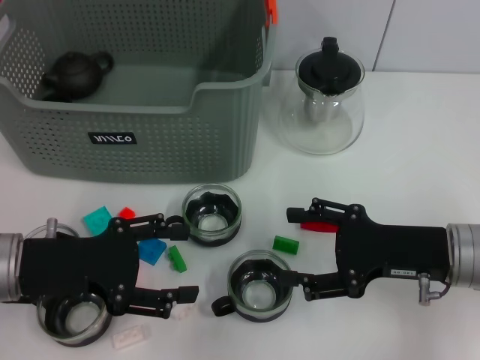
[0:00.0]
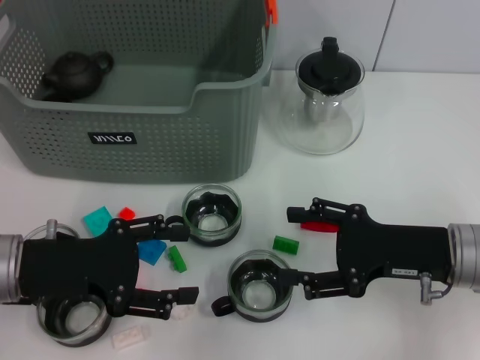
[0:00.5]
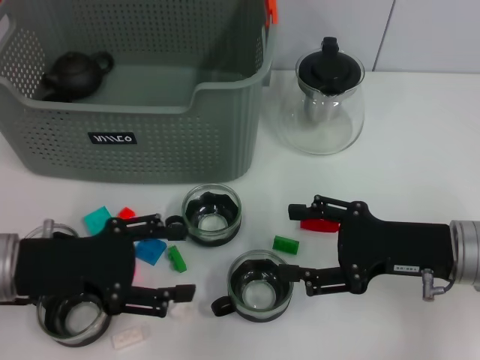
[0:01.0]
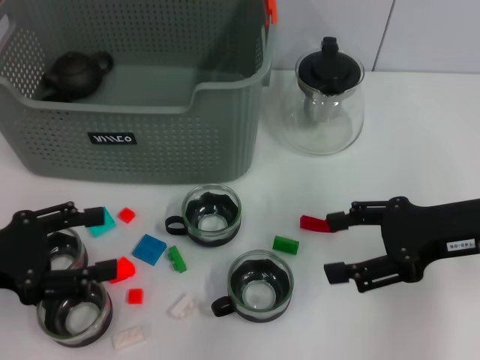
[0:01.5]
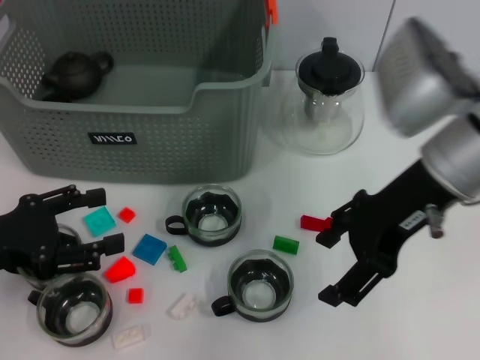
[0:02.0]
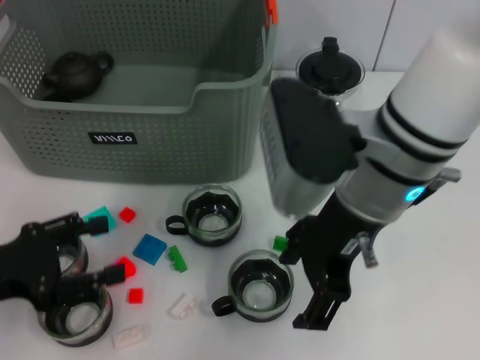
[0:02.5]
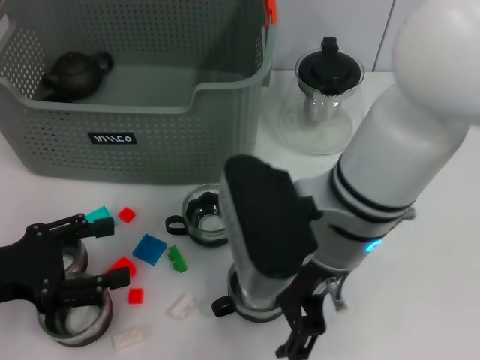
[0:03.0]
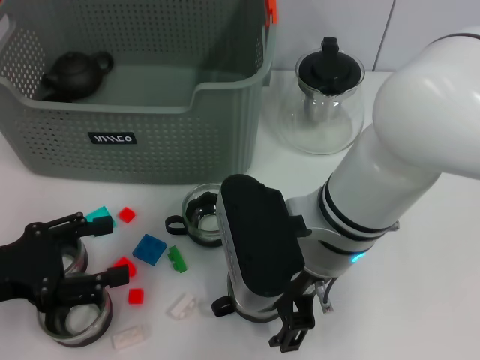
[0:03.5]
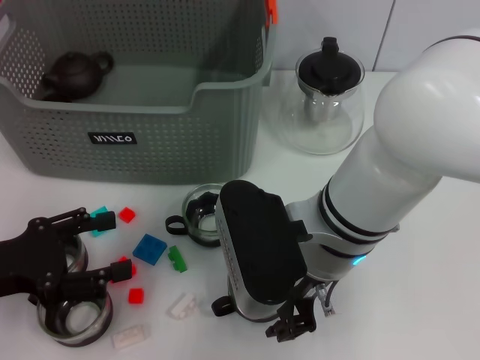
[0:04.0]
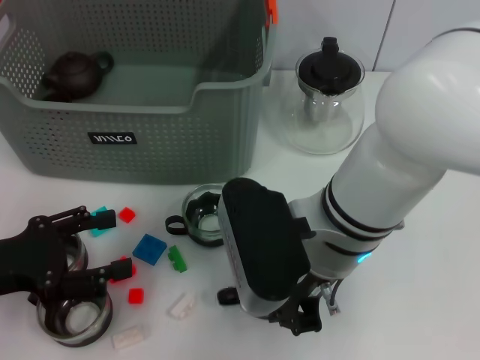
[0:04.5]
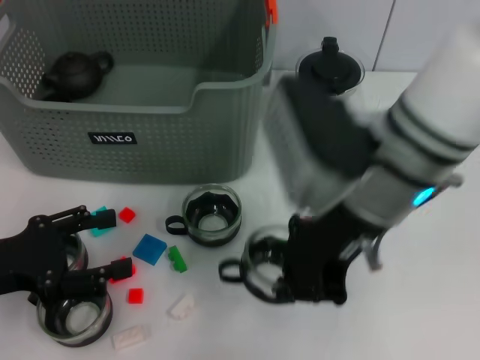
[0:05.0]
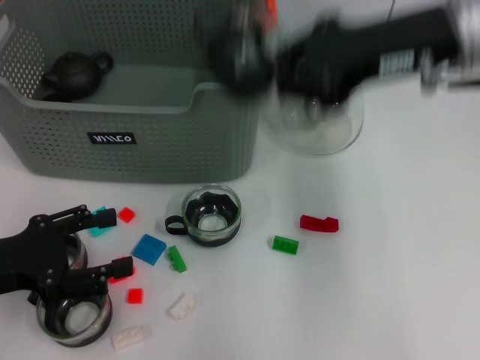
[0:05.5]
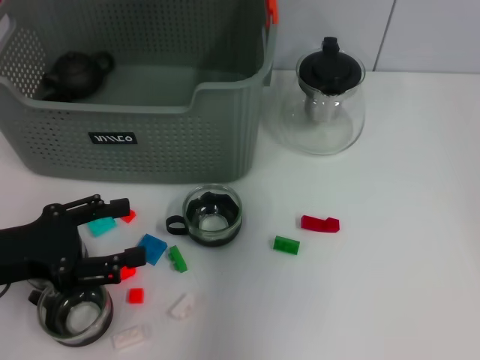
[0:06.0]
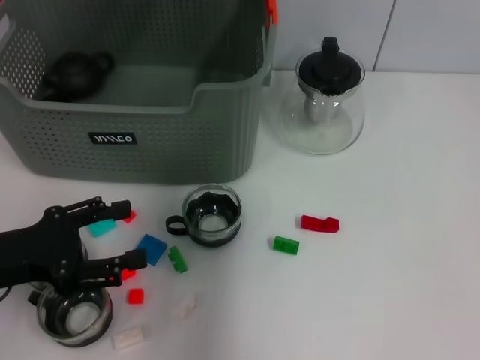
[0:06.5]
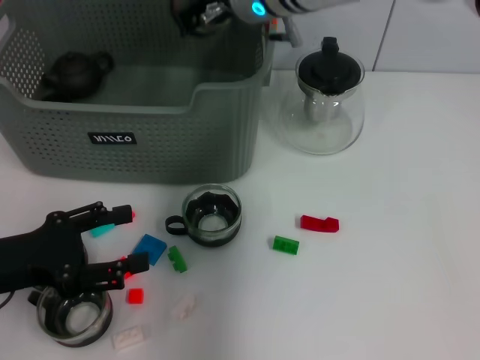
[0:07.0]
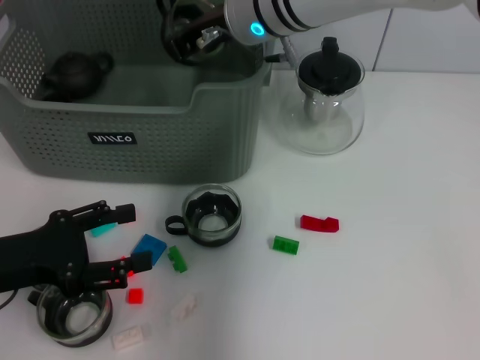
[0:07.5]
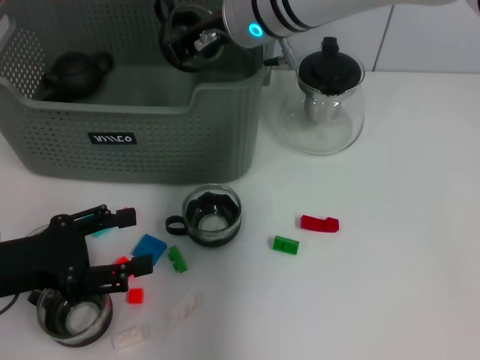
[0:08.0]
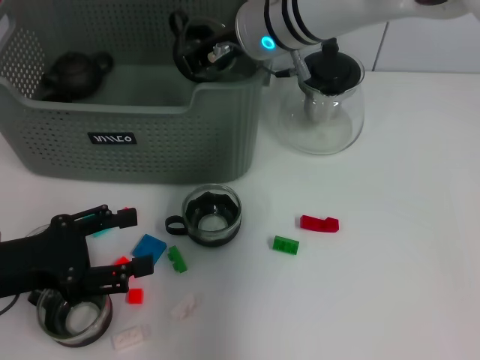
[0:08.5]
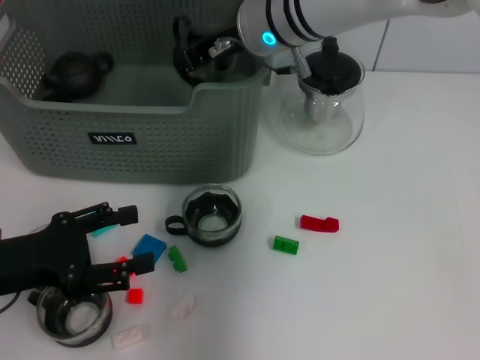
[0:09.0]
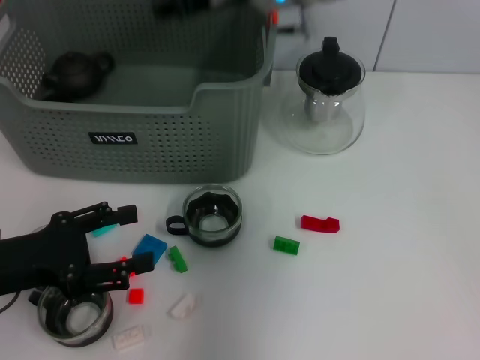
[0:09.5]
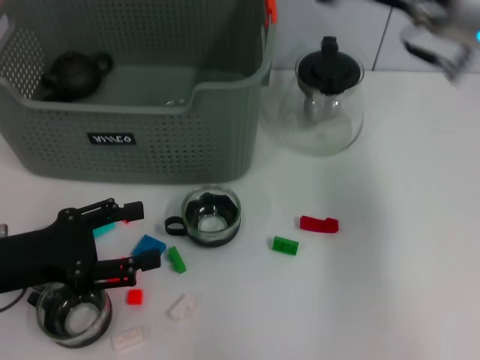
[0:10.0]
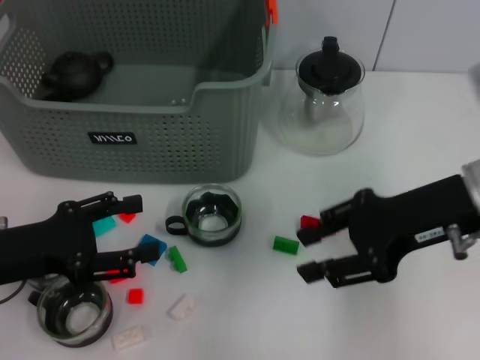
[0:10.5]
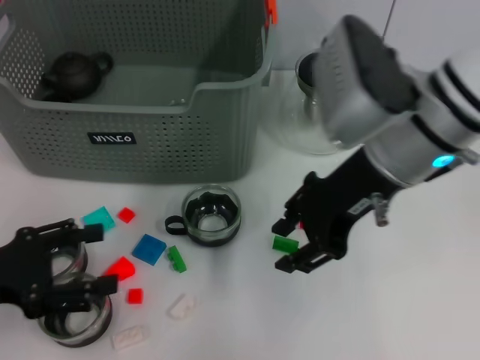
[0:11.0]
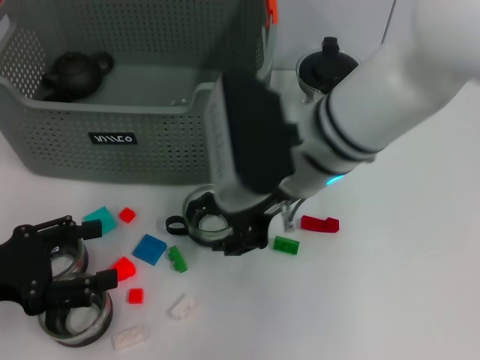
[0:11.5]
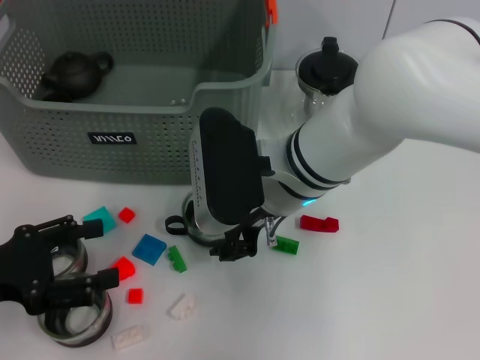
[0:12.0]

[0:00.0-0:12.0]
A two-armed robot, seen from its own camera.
Task of the whole recording: pick up the teacup on the table and place it into the storage bin, pick up the block on the table and place it into the storage bin.
Step, 0:00.0 to 0:04.5: Grasp the cup with right gripper.
Step, 0:05.0 to 0:09.5: Place the cup in the storage box with right gripper.
0:00.0 to 0:02.0: The right gripper travels upward and to the left by some 15 cm, while the left gripper moves to the left, roughly 5 cm.
0:02.0 to 0:04.0: The right gripper heads to the left and downward, covering some 15 cm.
0:04.0 to 0:06.0: The right gripper is displaced upward and forward by roughly 25 cm, and closes up.
0:06.0 to 0:08.0: The right gripper goes some 15 cm downward and to the left.
0:08.0 to 0:10.0: The right gripper is displaced to the right and backward by roughly 20 cm, and opens its fingers.
0:10.0 to 0:12.0: The right gripper moves to the left and downward, about 20 cm.

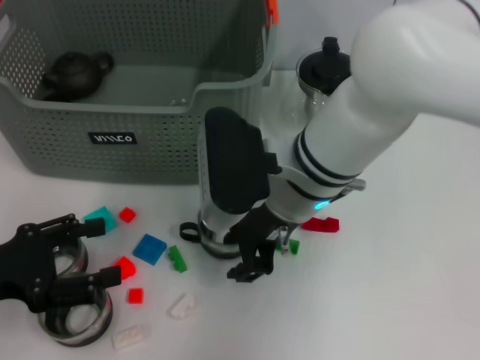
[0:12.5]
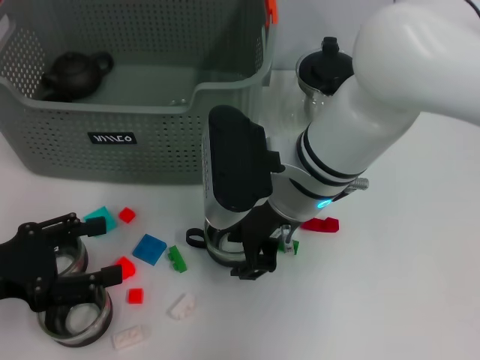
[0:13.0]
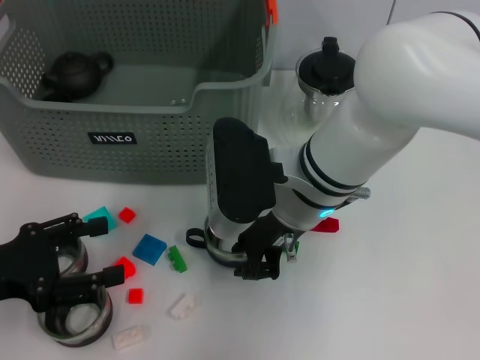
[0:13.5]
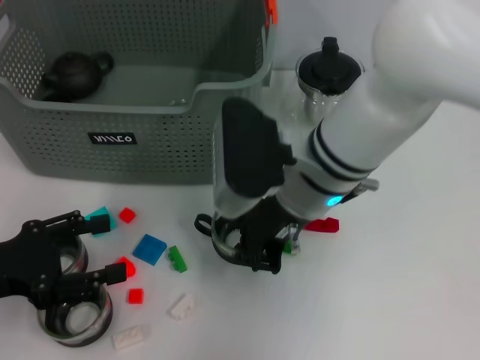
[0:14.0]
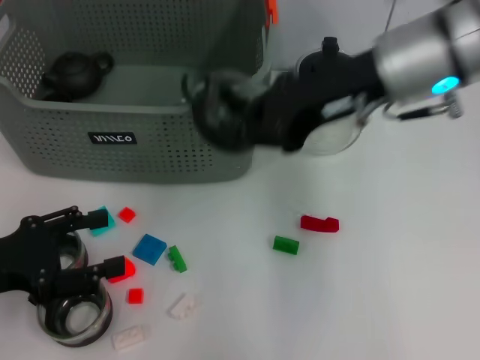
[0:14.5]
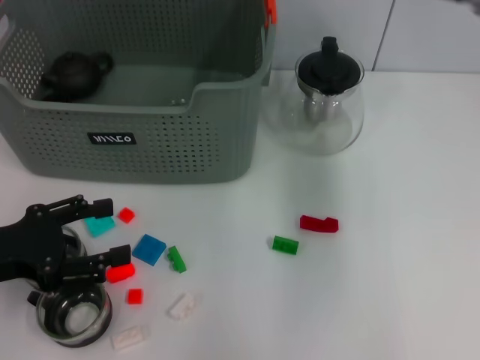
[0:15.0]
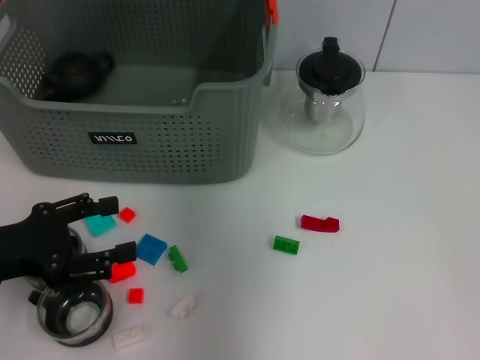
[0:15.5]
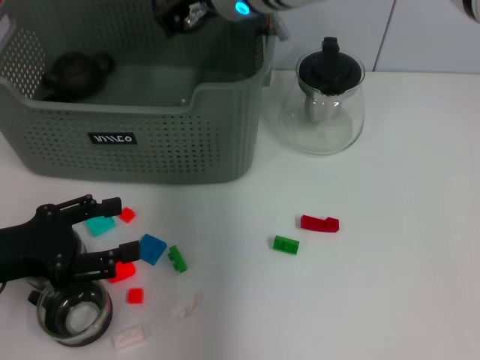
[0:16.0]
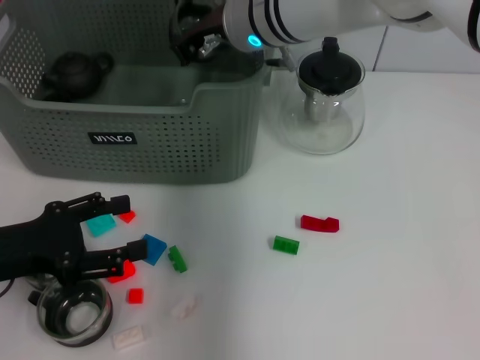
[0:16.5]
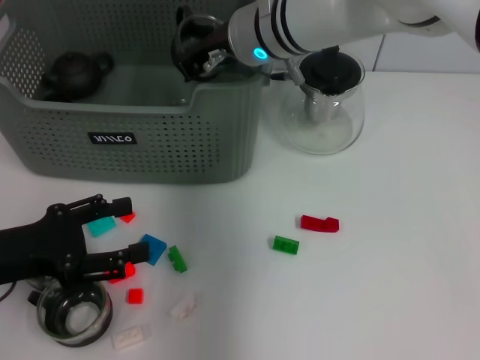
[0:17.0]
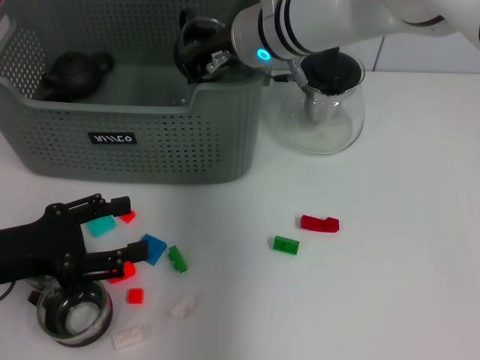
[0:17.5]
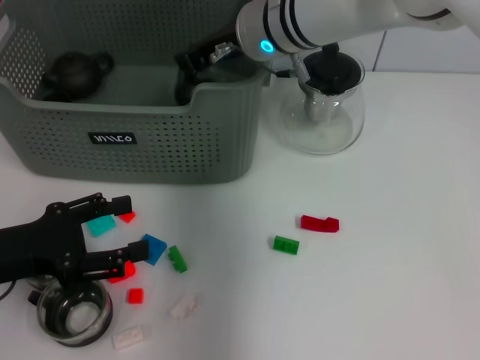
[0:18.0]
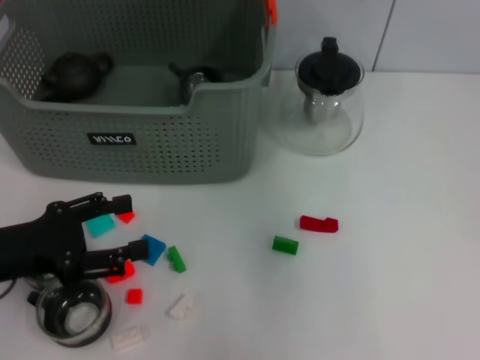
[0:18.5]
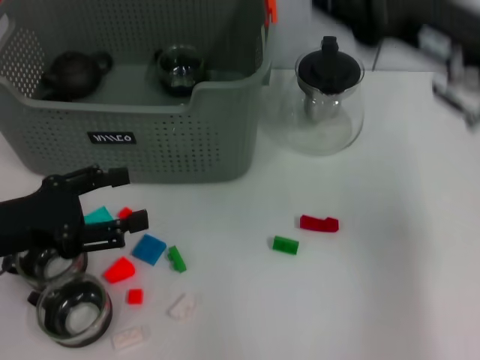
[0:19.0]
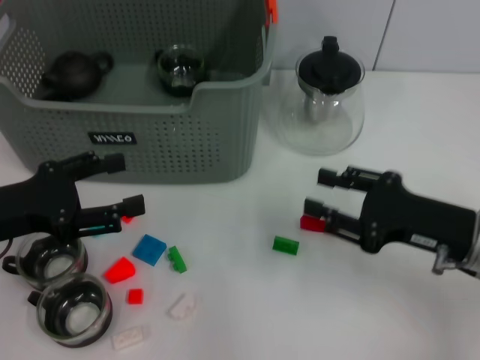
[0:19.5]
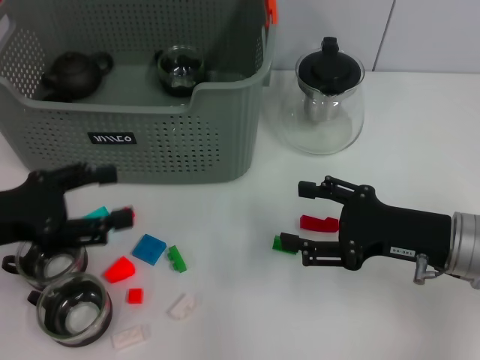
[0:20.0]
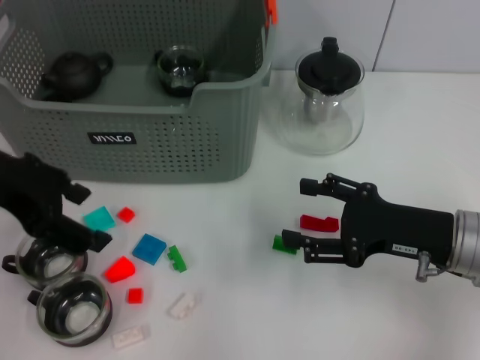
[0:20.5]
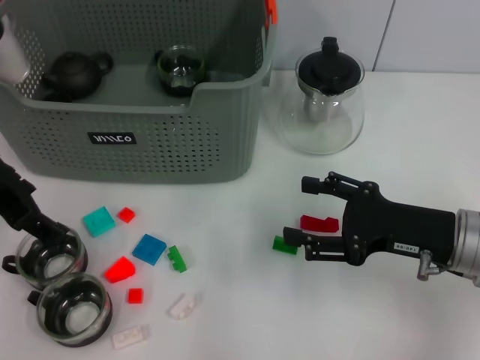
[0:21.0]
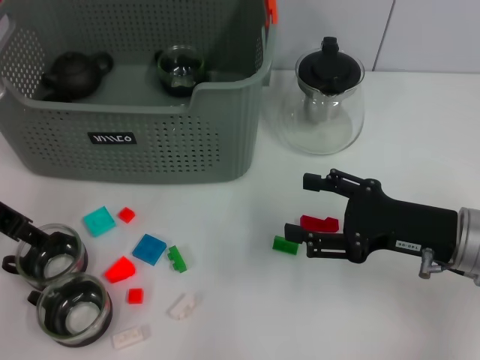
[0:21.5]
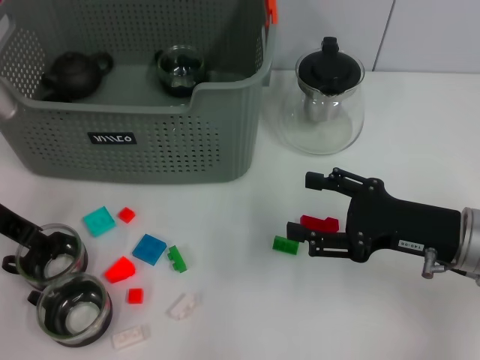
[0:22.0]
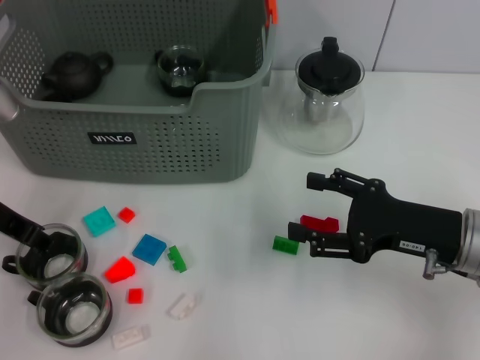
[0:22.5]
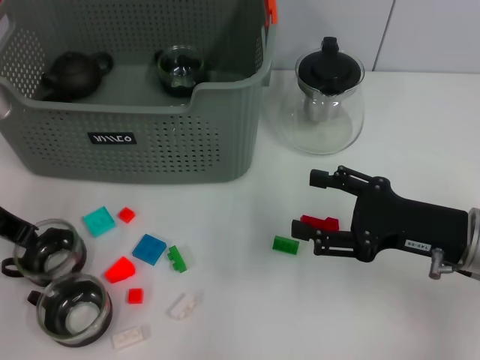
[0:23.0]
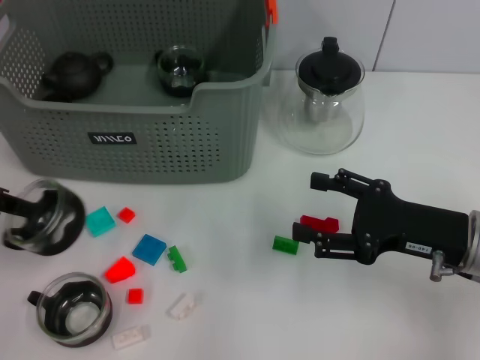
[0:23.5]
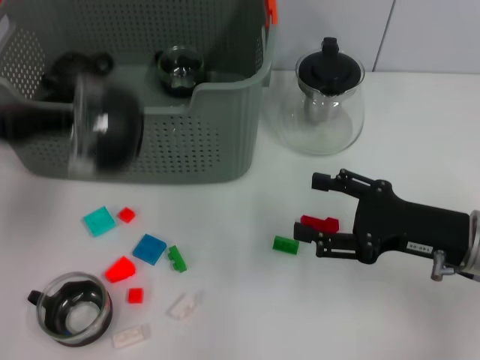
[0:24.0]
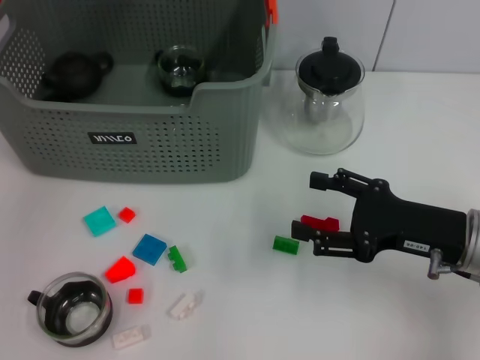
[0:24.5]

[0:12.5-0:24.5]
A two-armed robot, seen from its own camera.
Task of the whole recording: pick up the teacup on the table and place it into the storage bin, pick up the block on the table and place it into the storage bin.
Step, 0:14.0 to 0:18.5: Place the cup in the storage box with right gripper.
Step, 0:19.0 to 0:22.5: Grasp the cup with left gripper.
0:12.5 to 0:14.5: The right gripper is displaced to the right and upward by about 15 cm, and closes.
0:14.5 to 0:16.5: The right gripper heads to the left and forward, covering approximately 15 cm.
0:16.5 to 0:18.5: The right gripper heads to the right and upward, covering about 10 cm, and opens up.
0:18.5 to 0:20.5: The left gripper is displaced upward by approximately 15 cm. Meanwhile the right gripper shifts about 30 cm downward, backward and to the right, and opens.
0:20.5 to 0:22.5: The left gripper travels downward by roughly 10 cm.
0:22.5 to 0:24.5: The left gripper goes about 20 cm upward and forward, and closes its fingers.

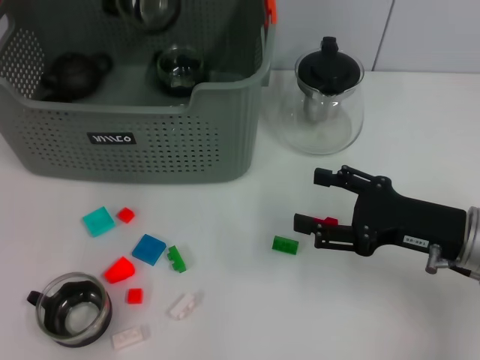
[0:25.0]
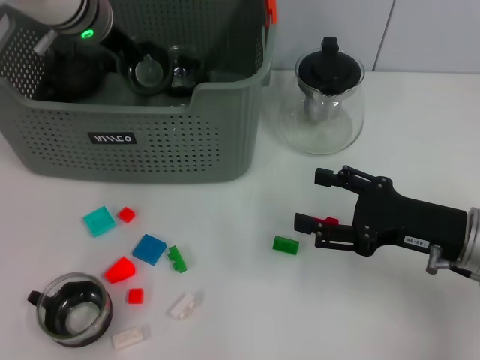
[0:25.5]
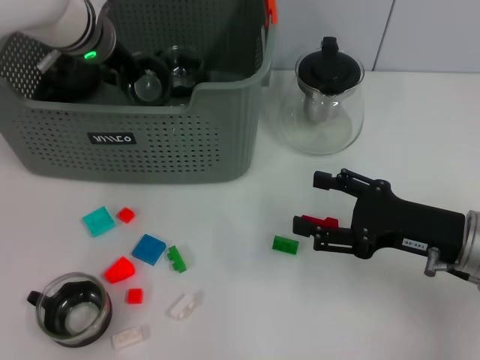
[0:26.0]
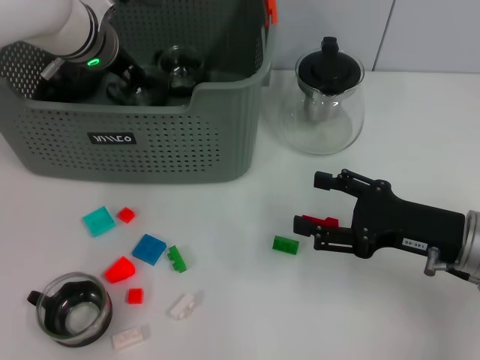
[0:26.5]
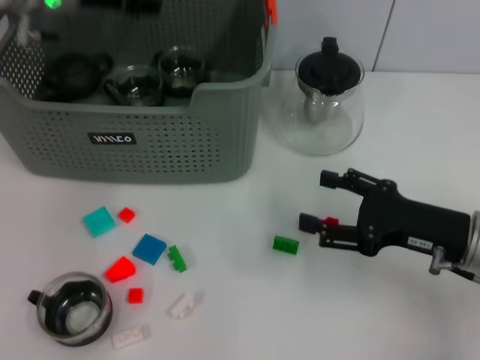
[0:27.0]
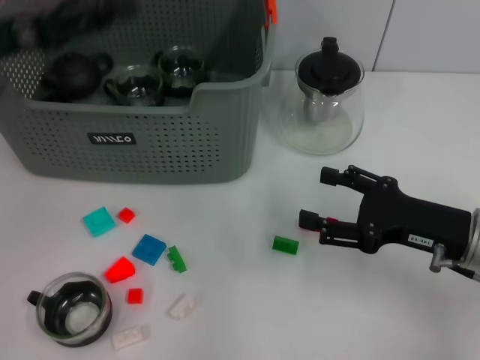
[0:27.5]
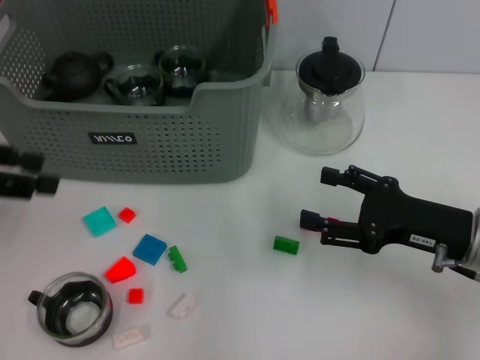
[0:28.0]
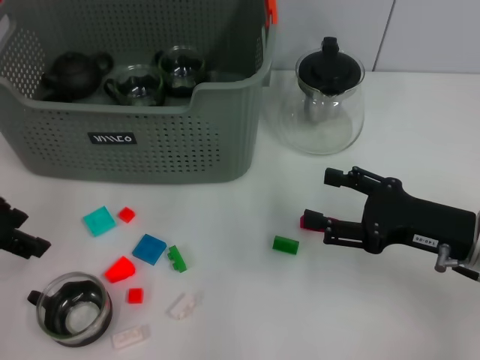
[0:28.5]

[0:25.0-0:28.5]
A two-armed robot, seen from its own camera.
Task of the whole recording: pick up the teacup on the table and place it into the storage bin, pick up the block on the table and place it into the storage bin.
0:25.0 to 0:27.0: The left gripper goes downward and returns, approximately 10 cm each way, and opens.
0:27.0 to 0:28.5: The left gripper travels backward and to the left by approximately 20 cm.
